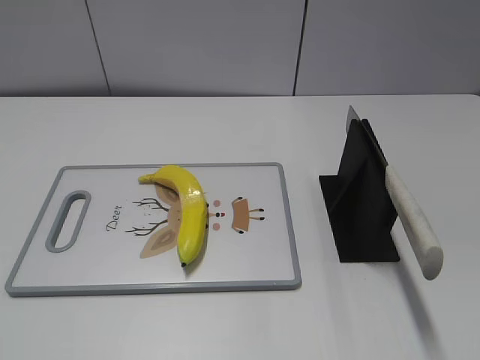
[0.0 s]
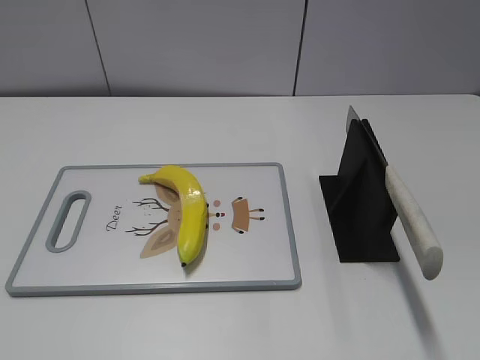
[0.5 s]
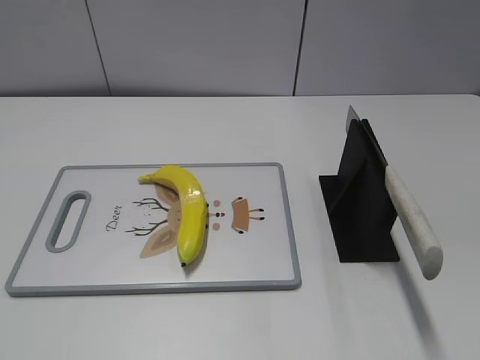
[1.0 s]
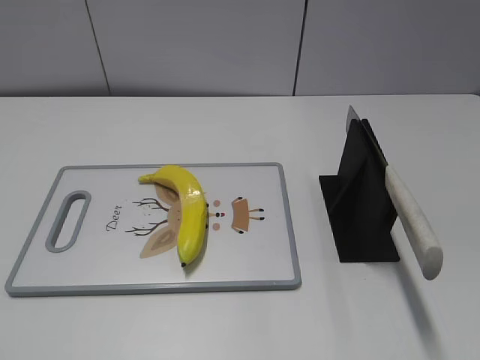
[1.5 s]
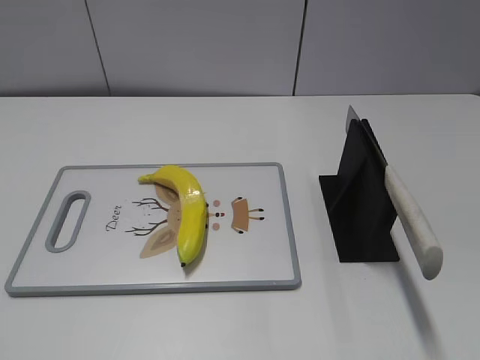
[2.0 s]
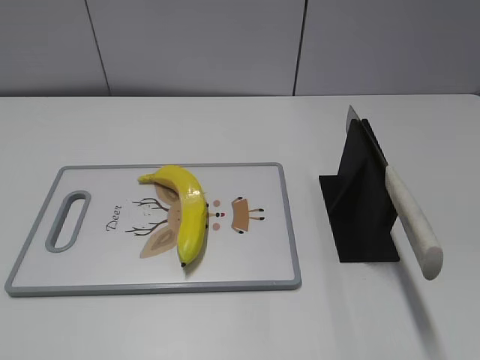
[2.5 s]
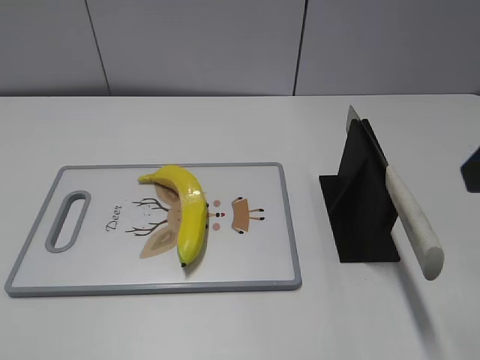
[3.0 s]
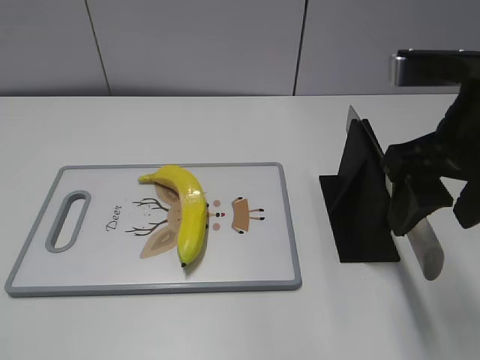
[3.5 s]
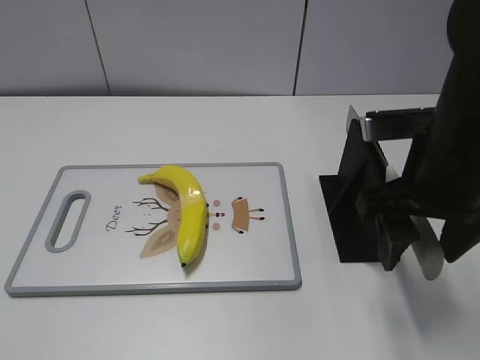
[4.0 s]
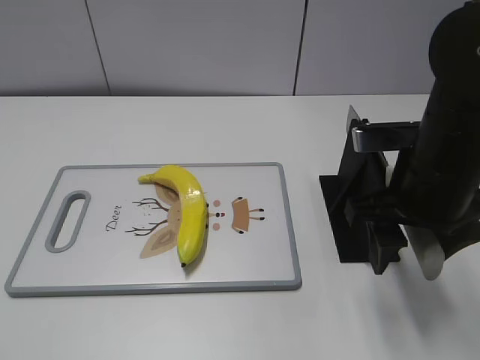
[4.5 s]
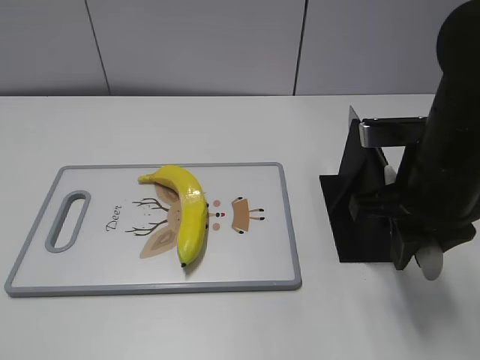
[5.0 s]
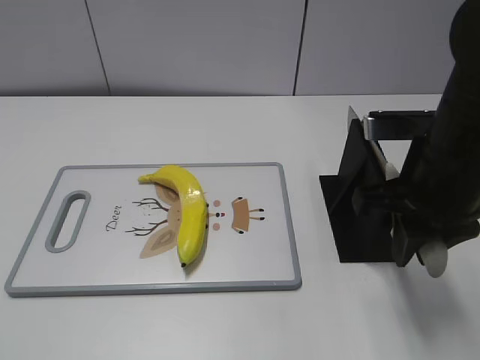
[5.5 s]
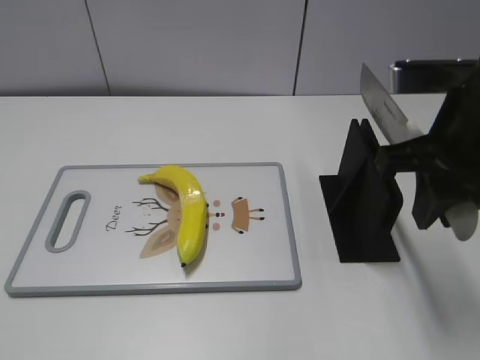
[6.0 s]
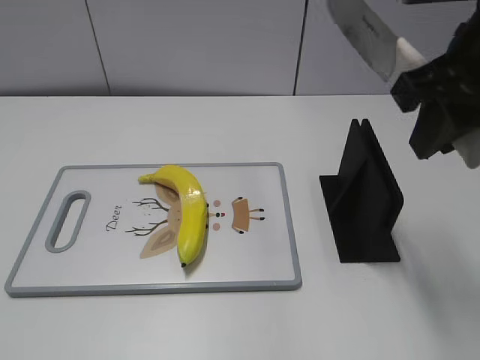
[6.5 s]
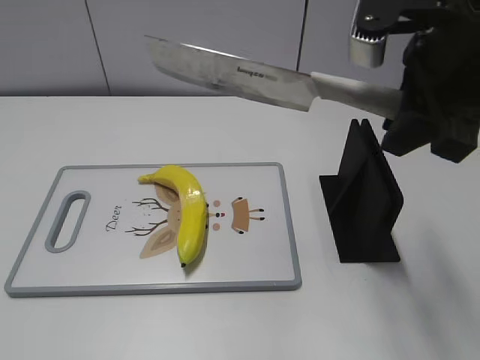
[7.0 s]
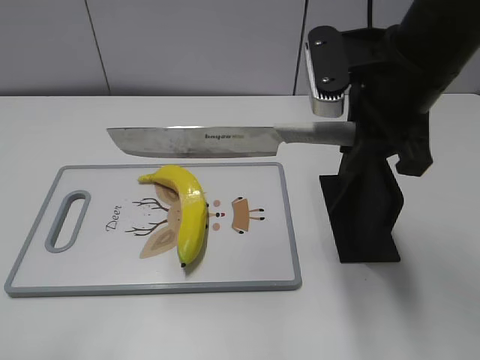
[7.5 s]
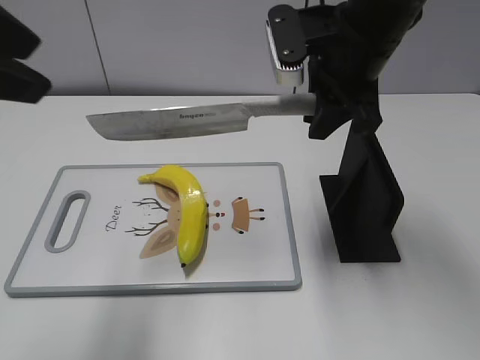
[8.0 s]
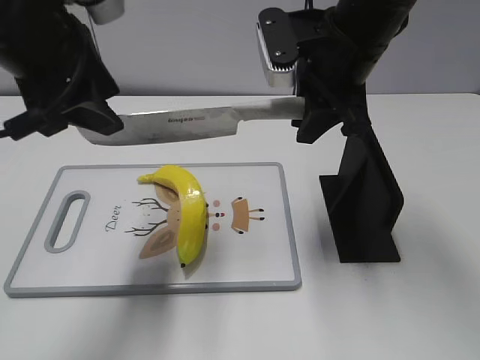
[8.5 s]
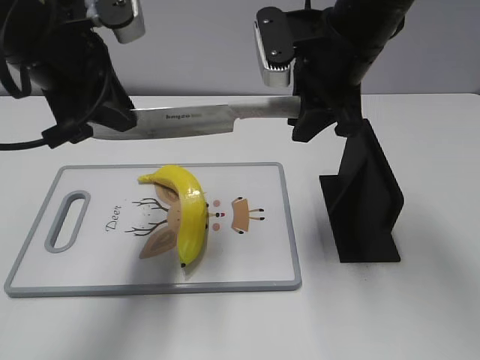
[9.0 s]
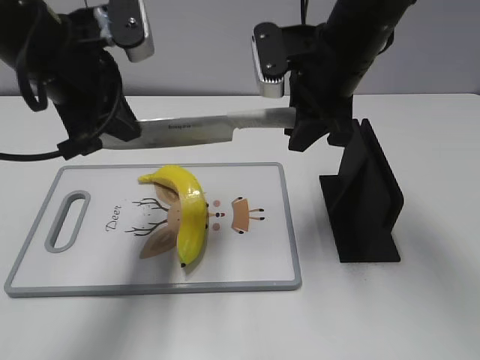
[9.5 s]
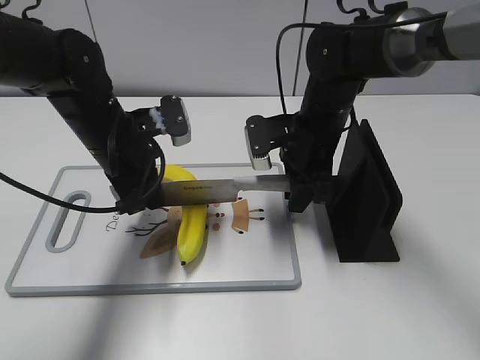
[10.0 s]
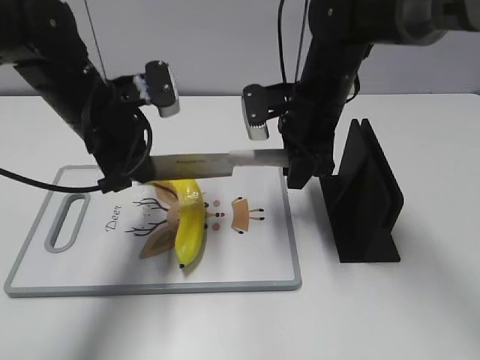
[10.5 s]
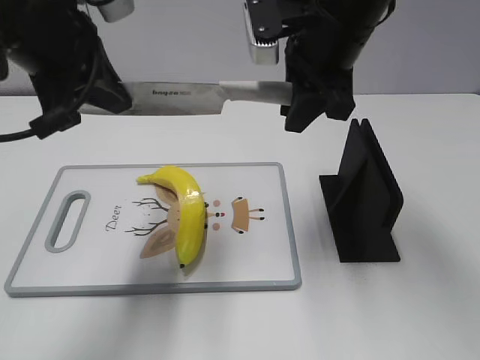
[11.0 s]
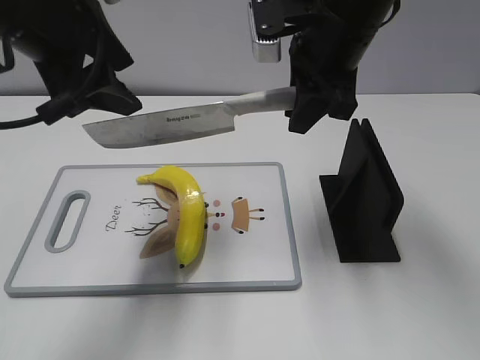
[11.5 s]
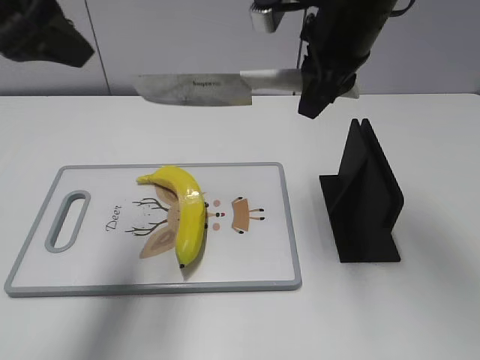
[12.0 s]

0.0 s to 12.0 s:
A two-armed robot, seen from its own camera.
Task of the whole recording: cut plastic banana.
Step, 0.0 to 6.0 s: Grab the knife handle with your right hand.
Step, 6.5 to 11.0 s: Lift the knife with your right hand.
2.0 to 4.0 s: The right gripper heads forward and to the left, covering roughly 25 cm.
4.0 to 6.0 s: The right gripper closes.
6.0 to 8.0 s: The left gripper travels forward, upward and to the right by some 25 cm. The right gripper travels forward and to the left by roughly 15 cm.
8.0 to 10.0 s: The left gripper goes about 30 cm downward and forward, and closes its fingers, while the right gripper shifts roughly 15 cm downward.
10.0 to 12.0 s: The two grippers go some 20 cm upward. The left gripper opens up.

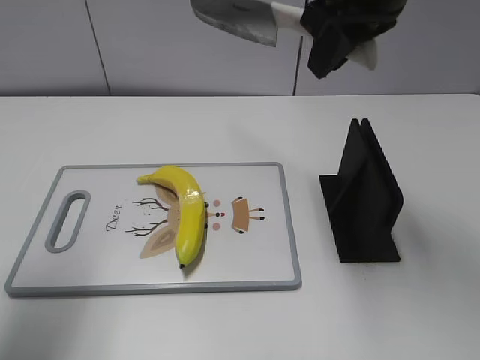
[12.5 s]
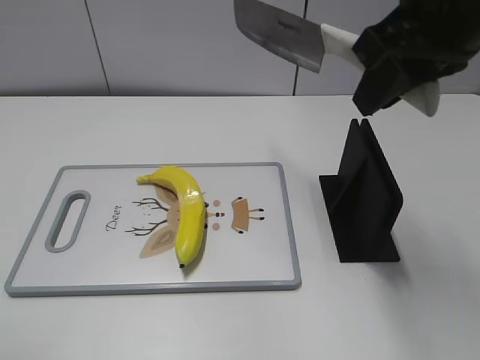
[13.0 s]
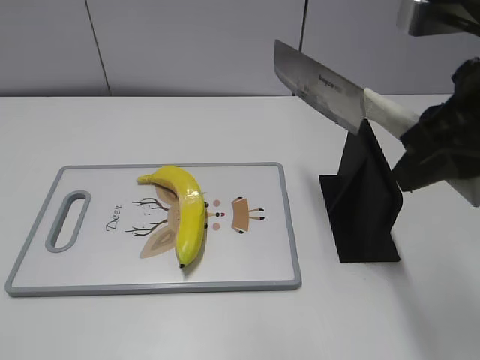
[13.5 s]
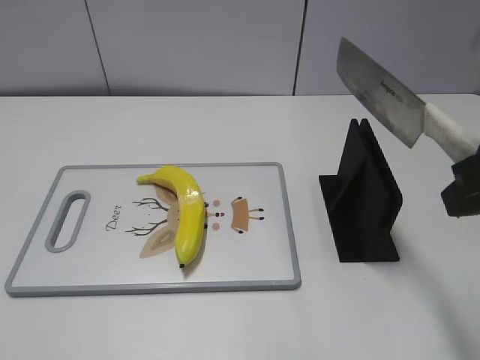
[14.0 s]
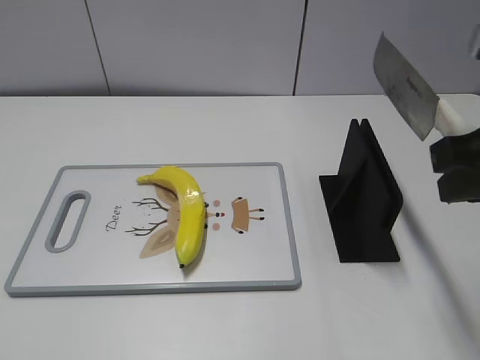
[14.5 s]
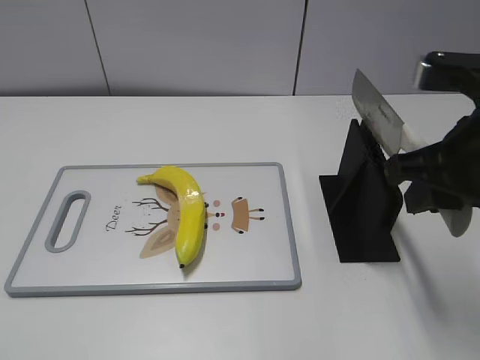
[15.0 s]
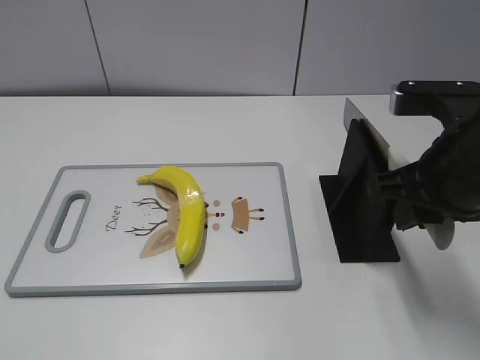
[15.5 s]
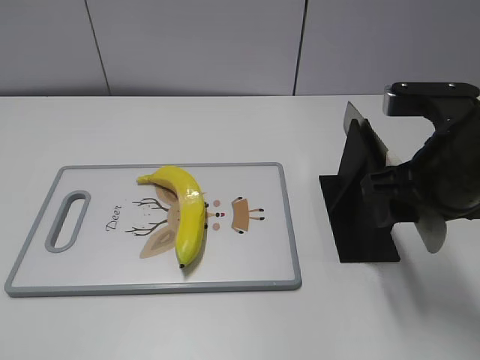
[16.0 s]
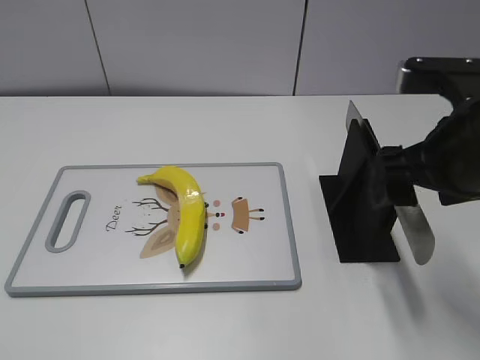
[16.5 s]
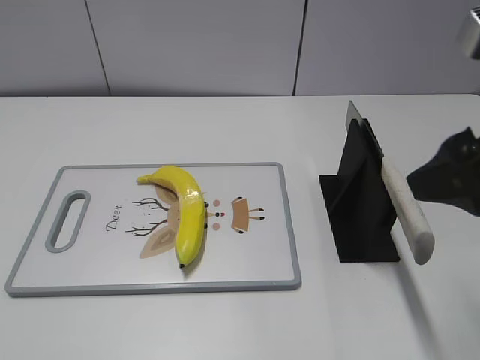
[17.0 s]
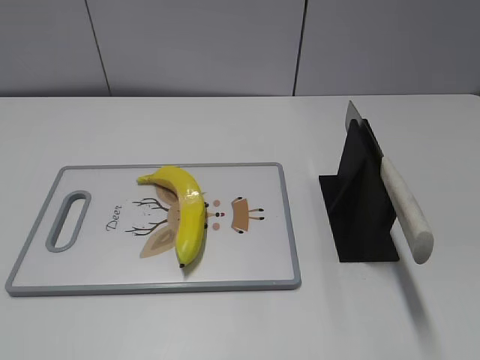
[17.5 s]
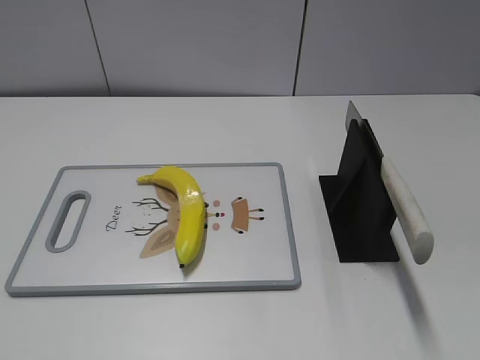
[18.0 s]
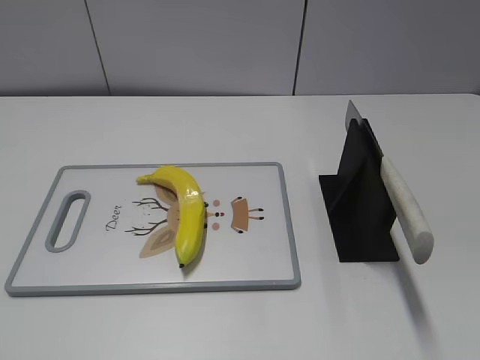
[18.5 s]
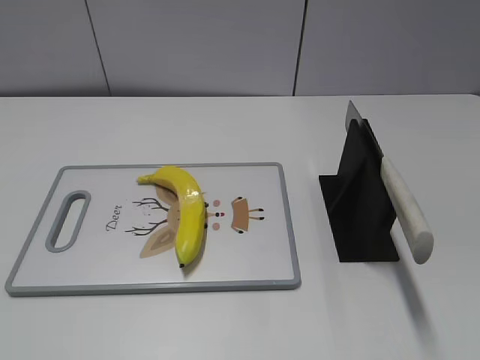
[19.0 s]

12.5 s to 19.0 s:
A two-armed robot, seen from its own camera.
Task of the whole recording: cut plastic banana.
Step, 12.5 to 14.0 s: Lift the knife with your right hand.
Step, 14.5 to 19.0 s: Place the knife on the storage rack with your right hand.
12.5 to 14.5 s: The right gripper moves backward and to the right, approximately 20 cm. Meanwhile the left gripper moves backward, approximately 20 cm.
14.5 to 17.0 s: The right gripper reaches about 5 cm downward, then returns, and opens.
17.0 to 19.0 s: The right gripper travels backward and to the right by roughly 20 cm.
